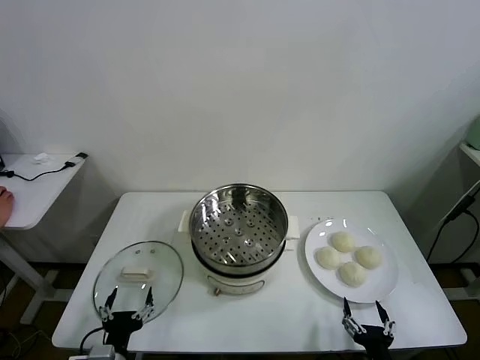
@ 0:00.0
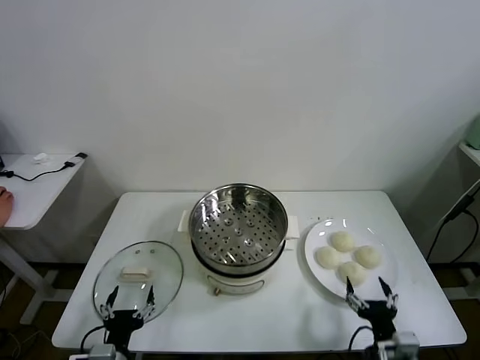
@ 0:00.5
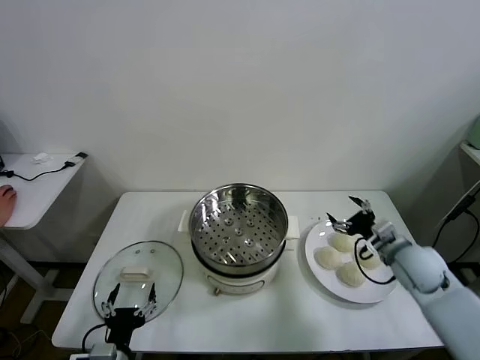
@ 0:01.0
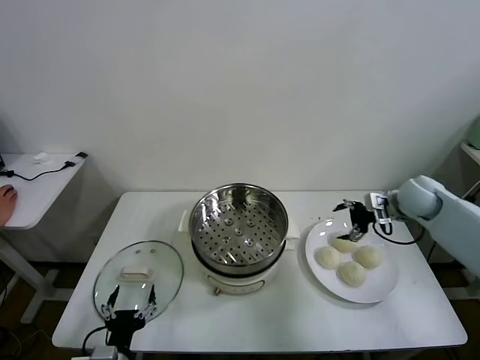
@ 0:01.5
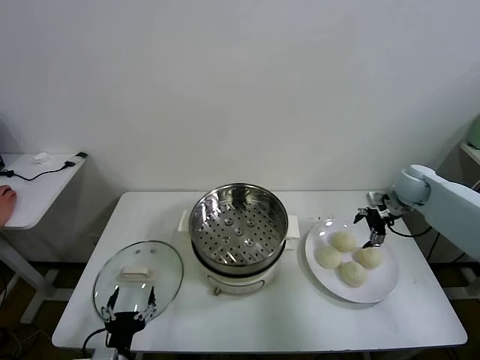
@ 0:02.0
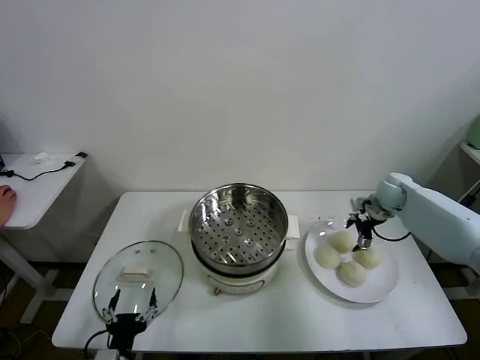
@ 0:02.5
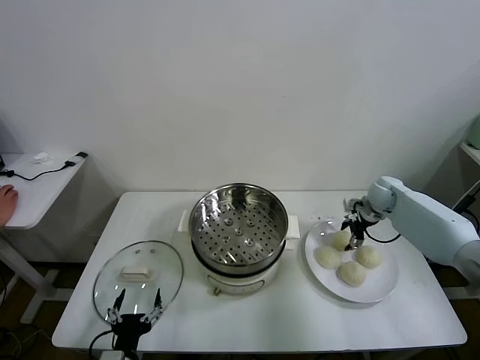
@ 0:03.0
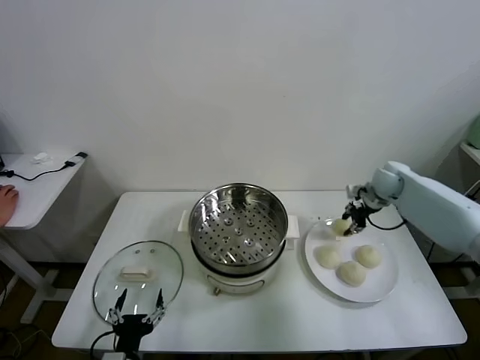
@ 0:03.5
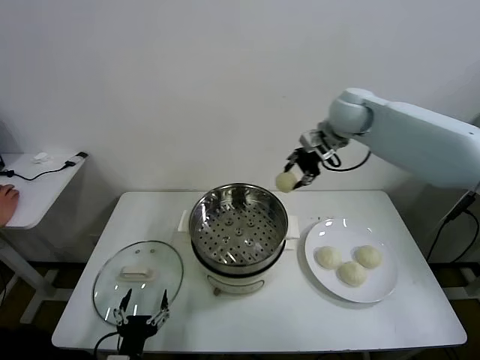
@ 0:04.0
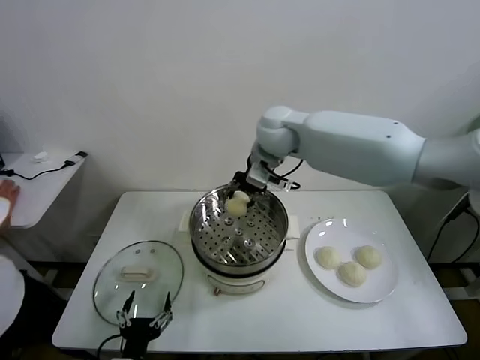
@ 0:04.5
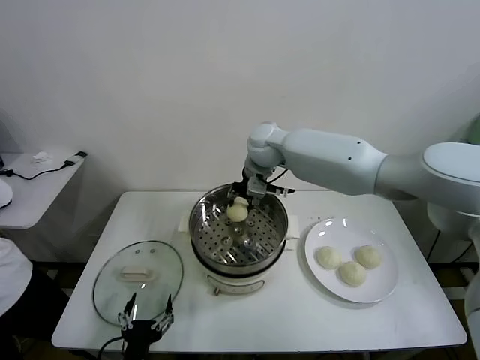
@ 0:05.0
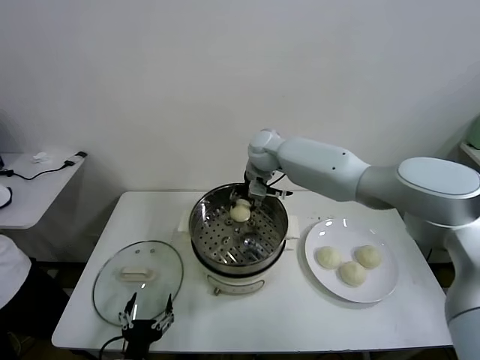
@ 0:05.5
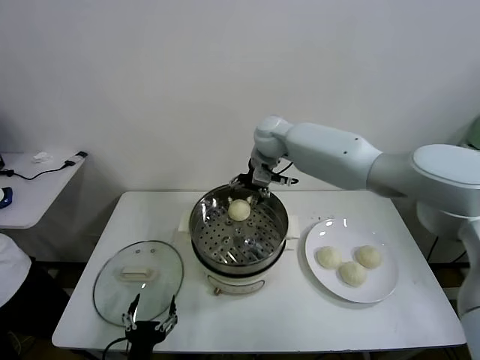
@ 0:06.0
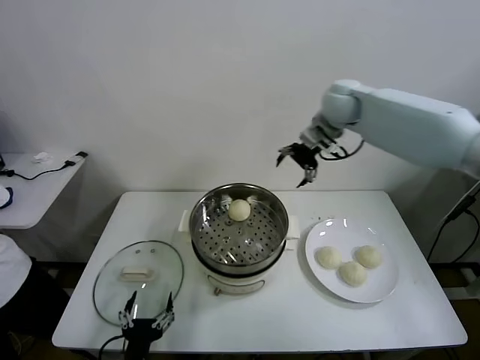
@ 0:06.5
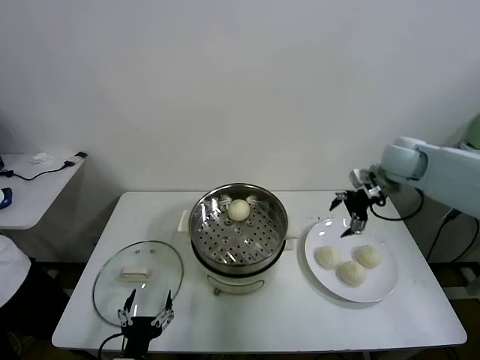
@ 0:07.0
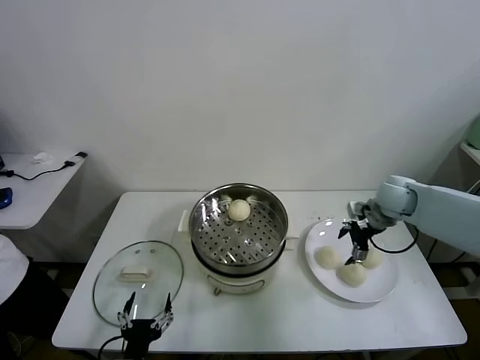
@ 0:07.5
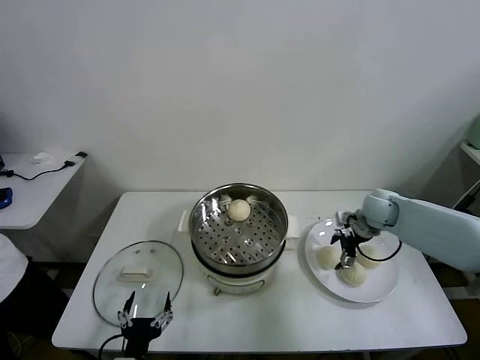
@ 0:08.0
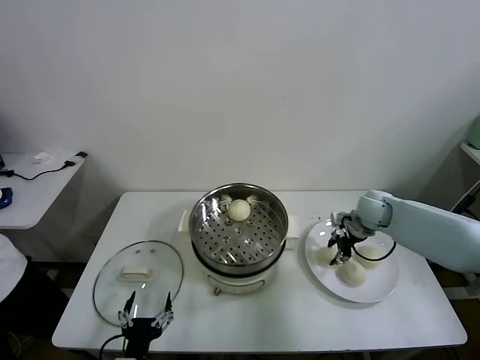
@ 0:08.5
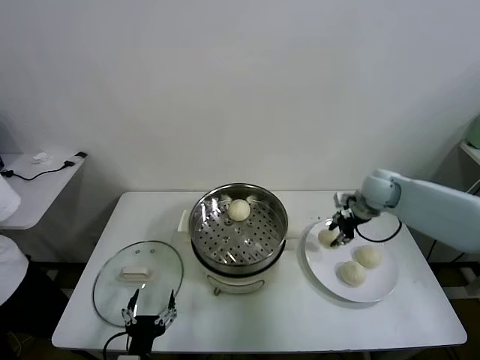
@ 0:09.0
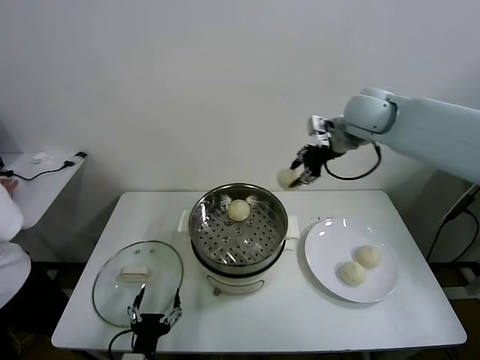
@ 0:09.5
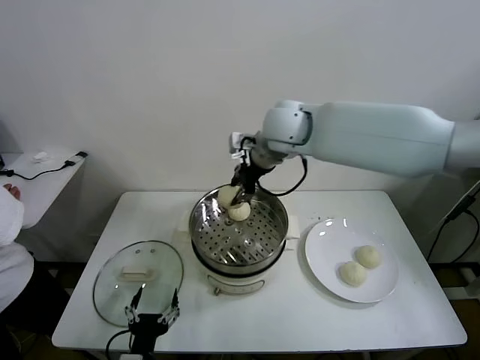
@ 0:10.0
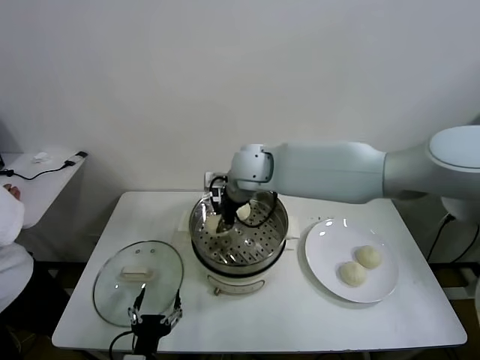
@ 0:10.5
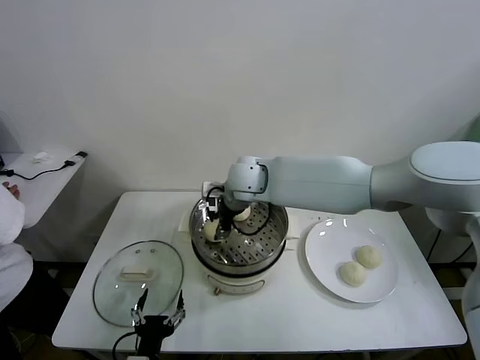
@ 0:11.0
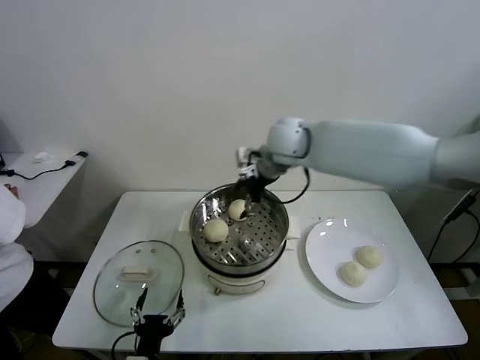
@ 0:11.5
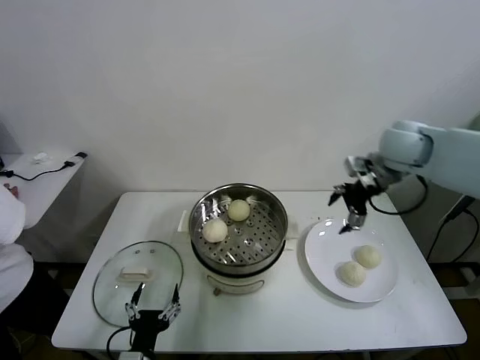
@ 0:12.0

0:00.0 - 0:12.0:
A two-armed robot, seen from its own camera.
Task of the whole recording: take steamed baozi put them in steamer.
Step, 0:00.0 - 0:03.0: Grasp the baozi in the plate with right gripper.
Step, 0:03.5 - 0:05.5: Place the baozi on the steamer with right gripper.
Step, 0:06.0 - 0:08.5: Grasp the baozi in the plate with right gripper.
Step, 0:09.0 - 0:11.0: Place the baozi on the steamer with right gripper.
0:02.0 - 0:04.0: The right gripper shifts roughly 30 cm to the left and upward, and closes its fingers.
0:04.0 - 0:06.0: The right gripper travels to the left and downward by about 10 cm, and opens its fingers.
0:06.0 - 0:08.0: The right gripper heads to the right and downward, covering some 30 cm.
0:08.0 - 0:10.0: The right gripper is displaced to the left and upward by approximately 35 cm, and closes its fingers.
0:10.0 - 0:12.0: The right gripper travels to the right by some 25 cm, and opens.

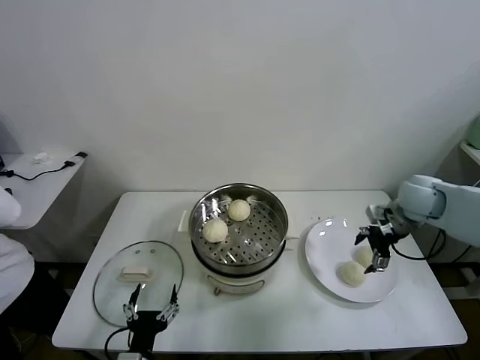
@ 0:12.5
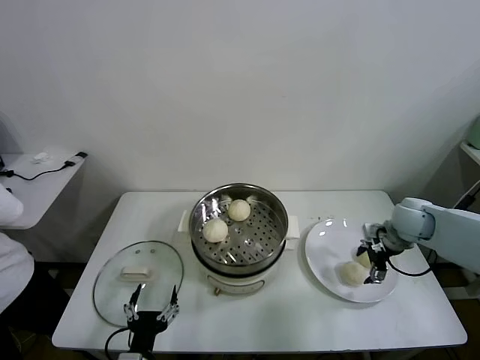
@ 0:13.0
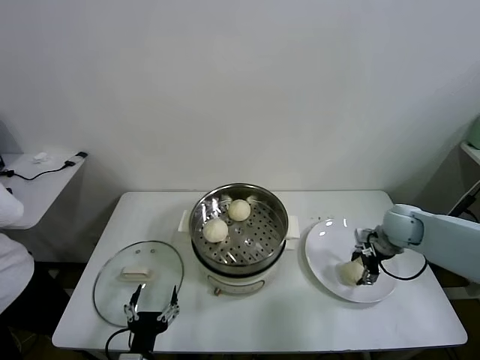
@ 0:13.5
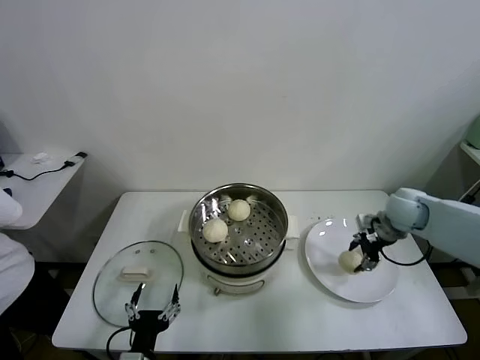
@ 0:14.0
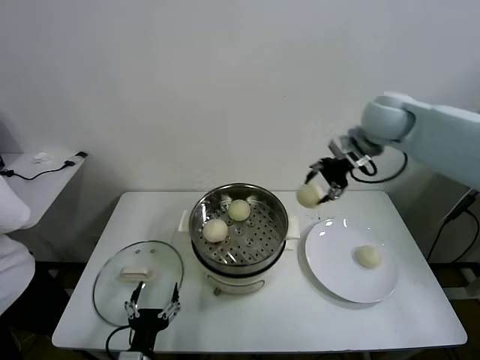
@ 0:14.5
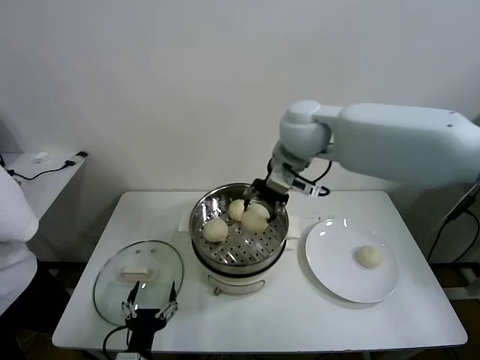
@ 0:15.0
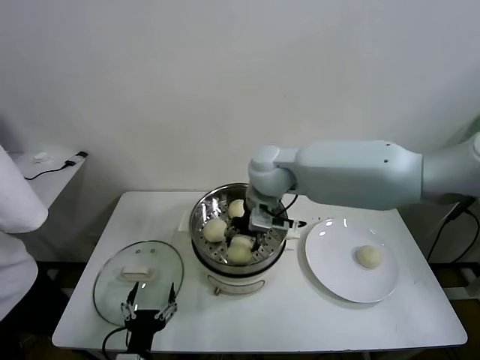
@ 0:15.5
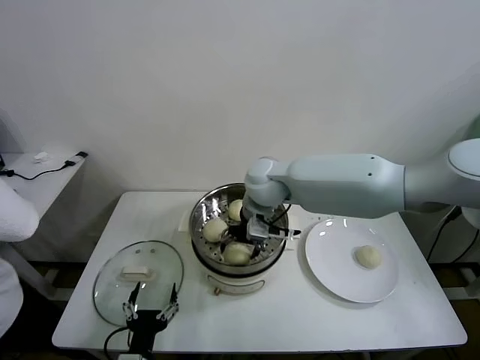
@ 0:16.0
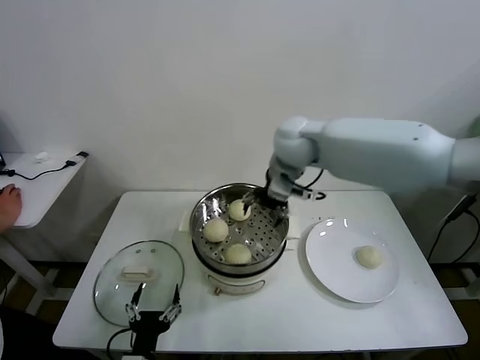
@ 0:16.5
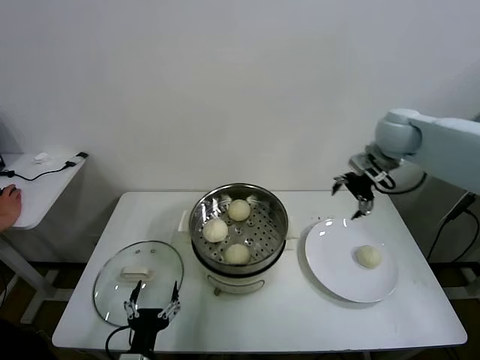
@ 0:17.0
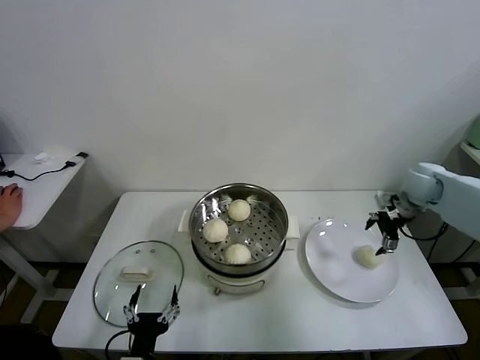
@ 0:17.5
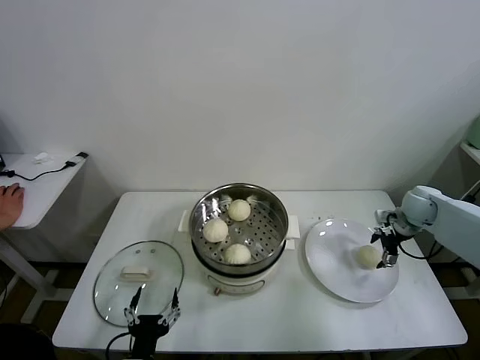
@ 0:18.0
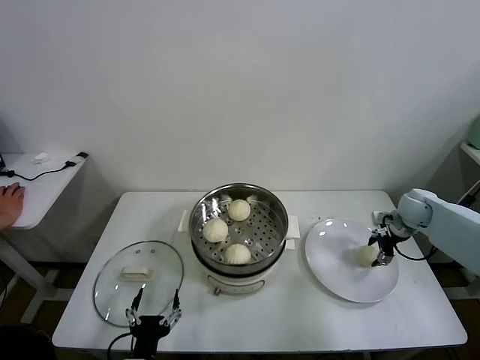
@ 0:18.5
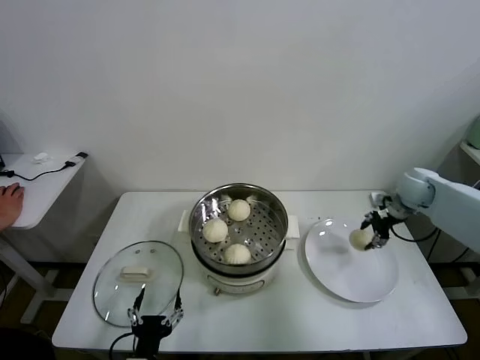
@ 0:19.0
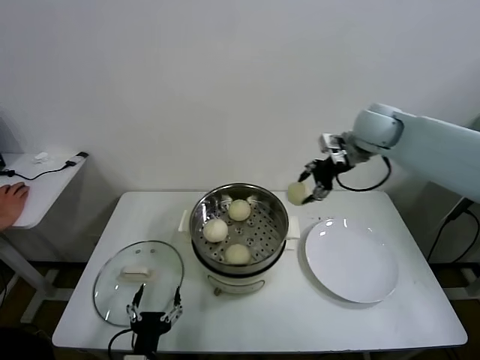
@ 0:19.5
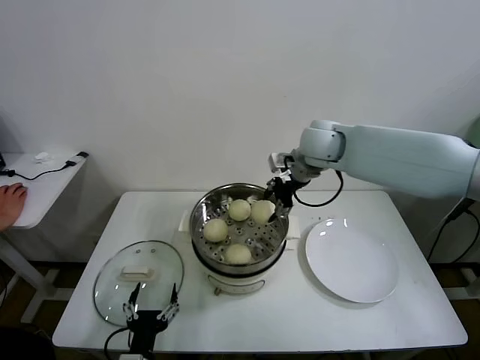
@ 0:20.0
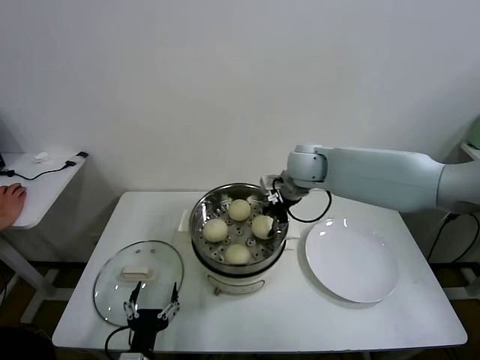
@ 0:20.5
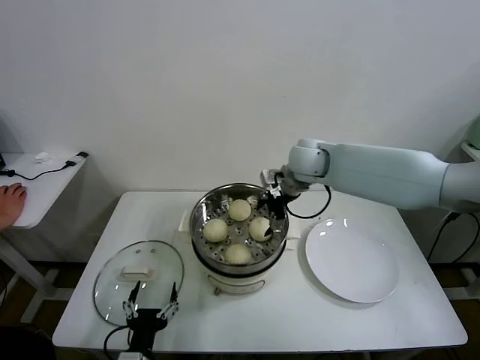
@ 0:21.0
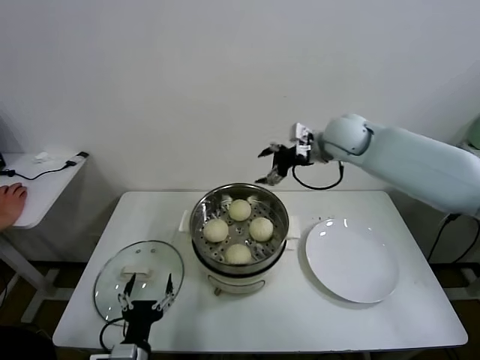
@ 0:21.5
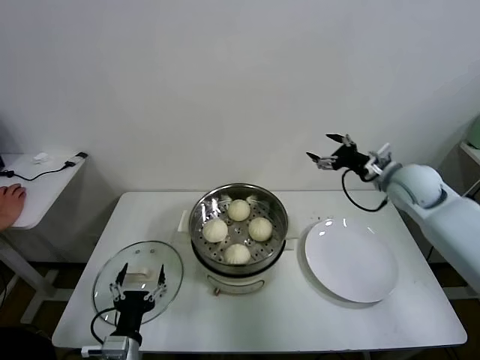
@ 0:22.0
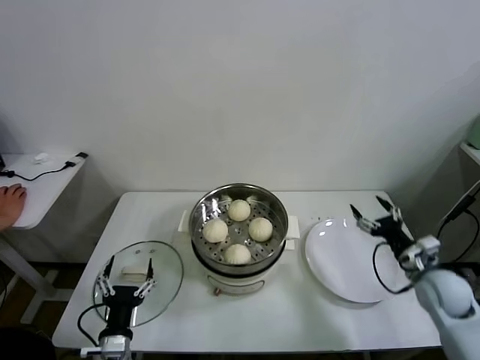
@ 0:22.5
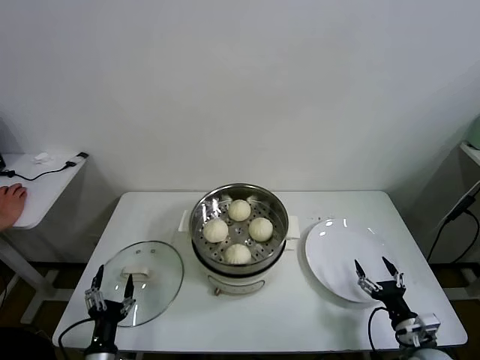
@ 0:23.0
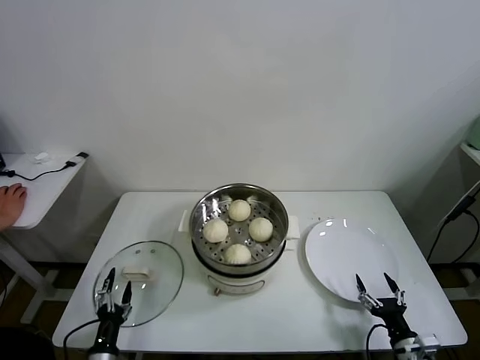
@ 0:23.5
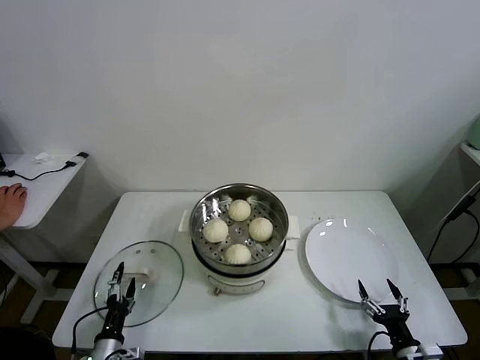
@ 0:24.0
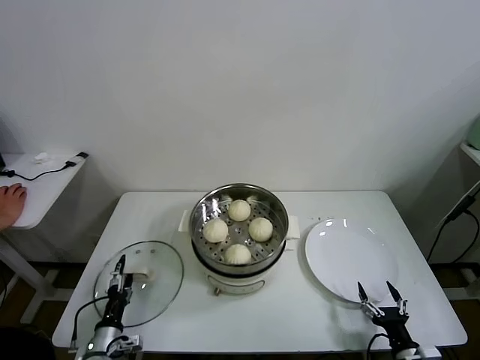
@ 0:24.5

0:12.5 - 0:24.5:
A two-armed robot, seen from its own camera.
Task of the whole recording: take steamed baozi put them in steamer.
Step, 0:14.0 - 0:16.0: Place the baozi on the steamer with right gripper.
Step, 0:16.5 - 0:18.0: Grasp the baozi in the plate with right gripper.
Step, 0:19.0 - 0:20.5: Place the baozi on the steamer with right gripper.
0:12.5 - 0:14.5: The right gripper heads upward and to the left, covering about 20 cm, and closes.
0:14.5 - 0:16.5: The right gripper travels to the left by approximately 15 cm, and opens.
0:16.5 - 0:18.5: The right gripper travels to the right and downward by about 40 cm, and closes its fingers.
0:18.5 - 0:20.5: The right gripper travels to the left and upward by roughly 35 cm.
0:20.5 - 0:22.5: The right gripper goes about 40 cm to the right, backward and downward, and opens up. The left gripper changes place by roughly 5 cm.
0:22.5 - 0:24.5: The left gripper shifts approximately 15 cm downward and to the left; the right gripper travels backward and downward by about 25 cm.

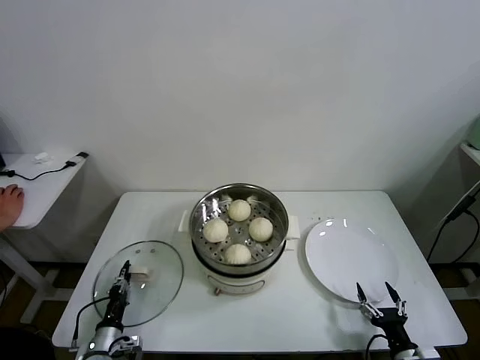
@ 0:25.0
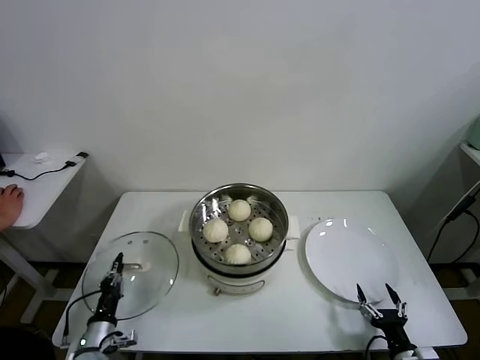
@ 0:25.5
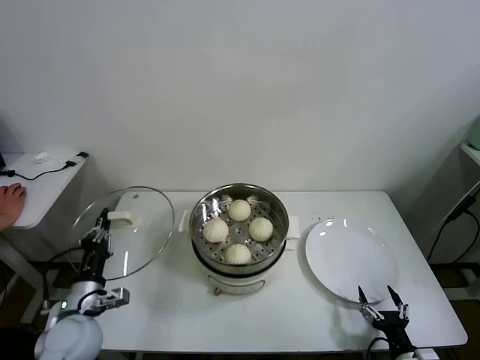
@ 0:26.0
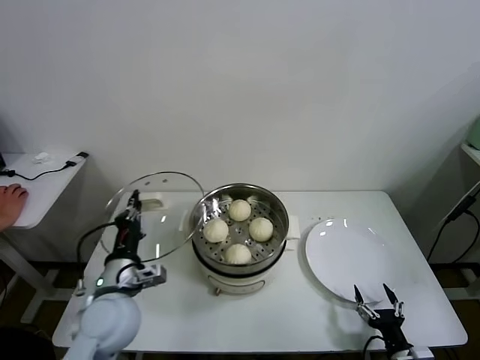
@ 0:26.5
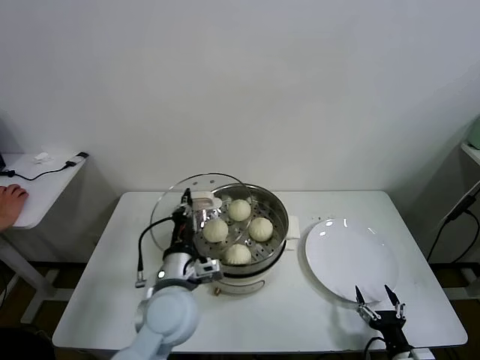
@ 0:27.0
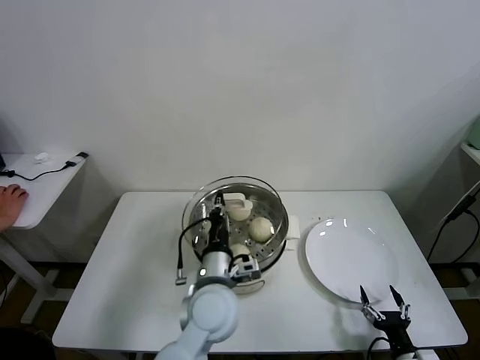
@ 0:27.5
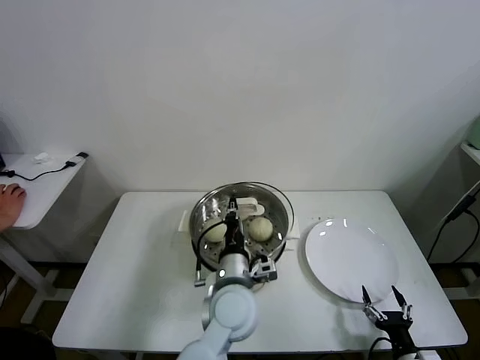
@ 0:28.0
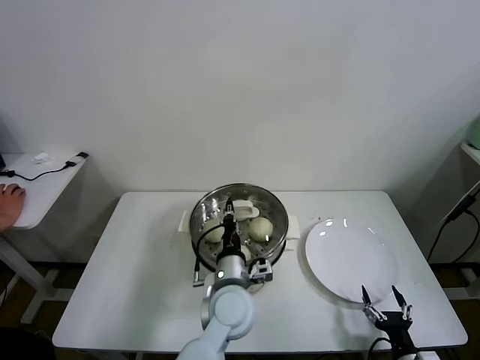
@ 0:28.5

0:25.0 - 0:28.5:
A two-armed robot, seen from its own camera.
Task of the whole recording: take steamed baozi put them in steamer.
0:25.0 - 0:27.0: The left gripper moves upward and to the right, about 30 cm.
0:27.0 - 0:28.5: The left gripper travels to the right by approximately 10 cm.
